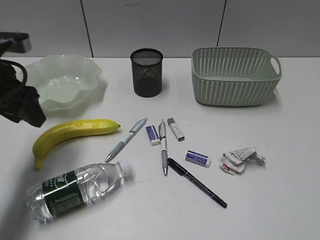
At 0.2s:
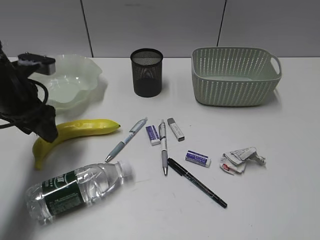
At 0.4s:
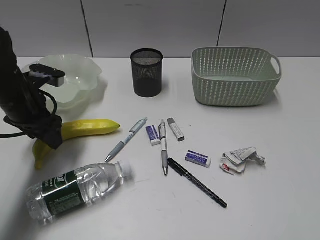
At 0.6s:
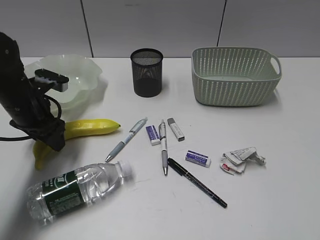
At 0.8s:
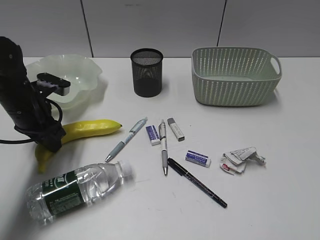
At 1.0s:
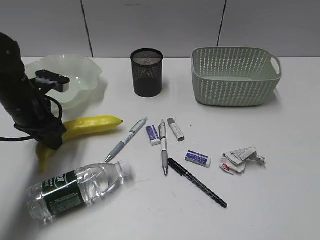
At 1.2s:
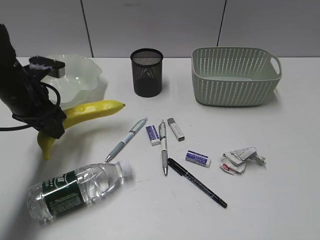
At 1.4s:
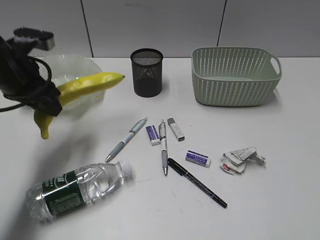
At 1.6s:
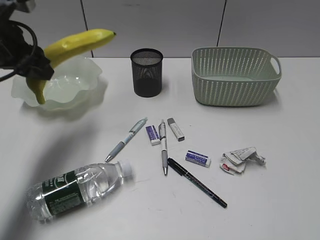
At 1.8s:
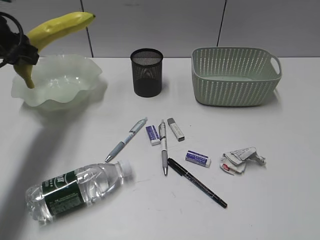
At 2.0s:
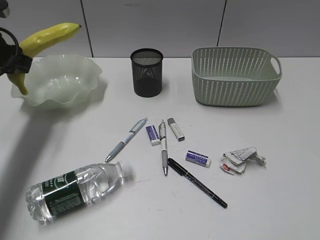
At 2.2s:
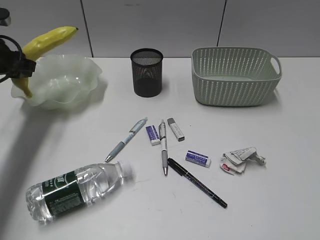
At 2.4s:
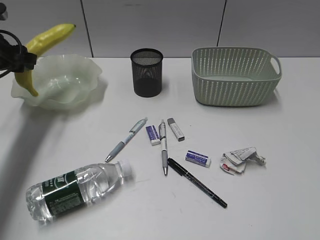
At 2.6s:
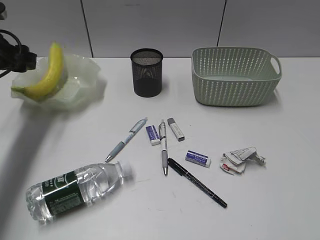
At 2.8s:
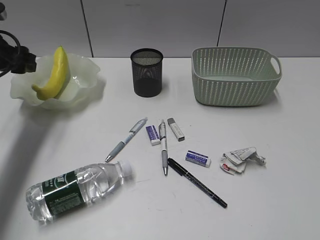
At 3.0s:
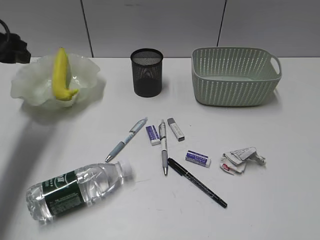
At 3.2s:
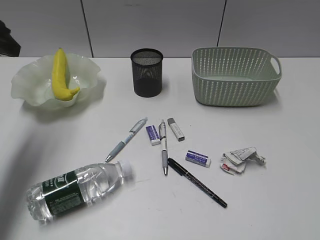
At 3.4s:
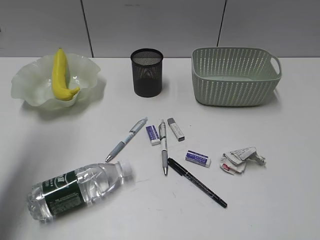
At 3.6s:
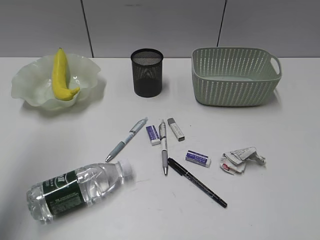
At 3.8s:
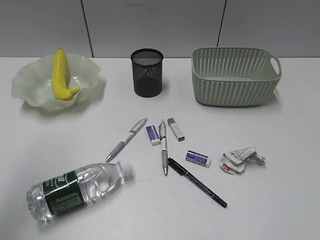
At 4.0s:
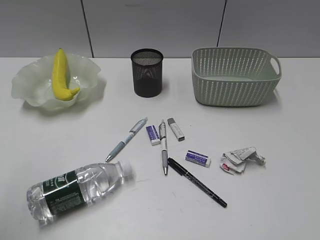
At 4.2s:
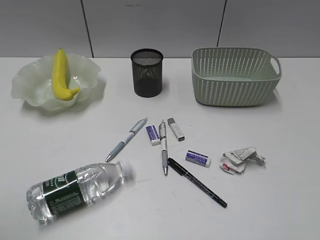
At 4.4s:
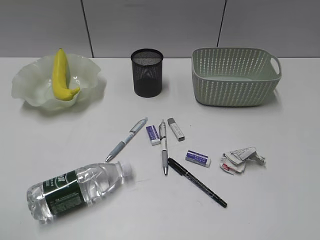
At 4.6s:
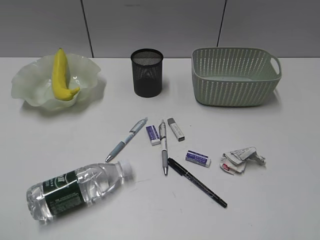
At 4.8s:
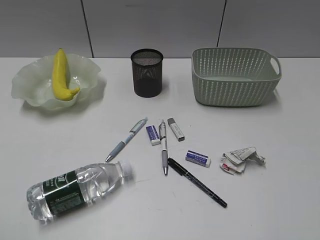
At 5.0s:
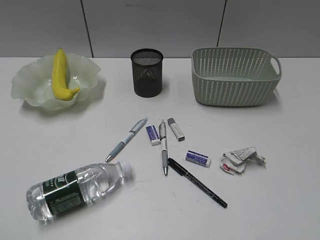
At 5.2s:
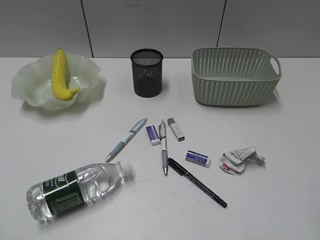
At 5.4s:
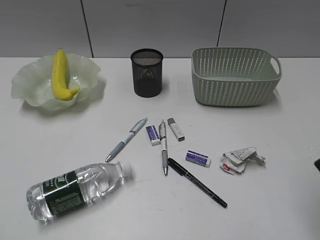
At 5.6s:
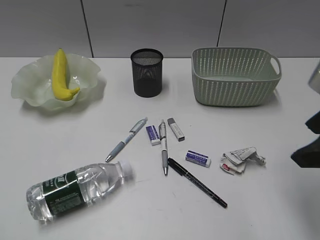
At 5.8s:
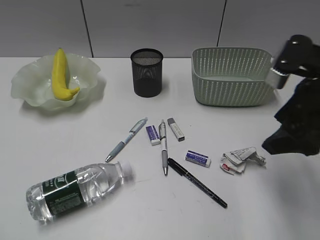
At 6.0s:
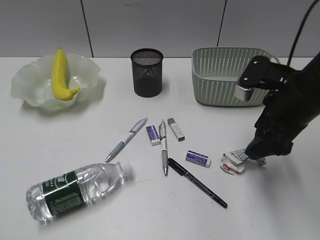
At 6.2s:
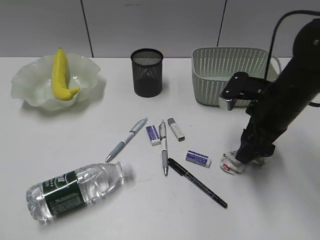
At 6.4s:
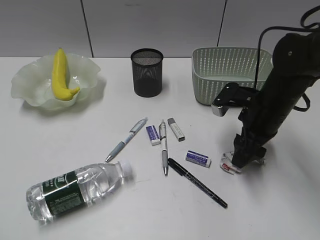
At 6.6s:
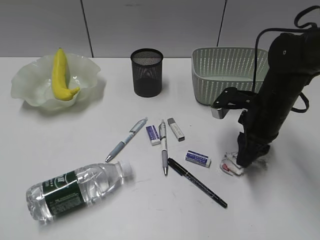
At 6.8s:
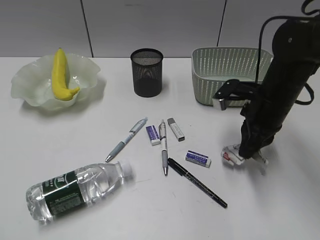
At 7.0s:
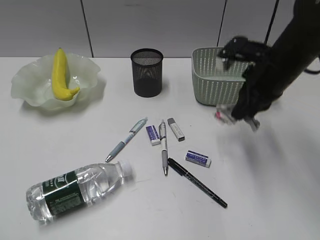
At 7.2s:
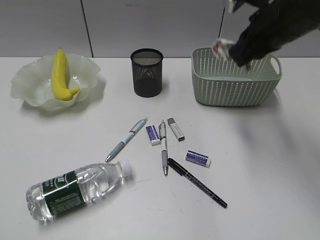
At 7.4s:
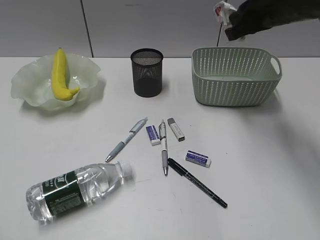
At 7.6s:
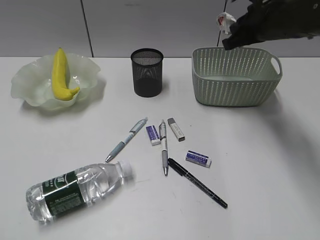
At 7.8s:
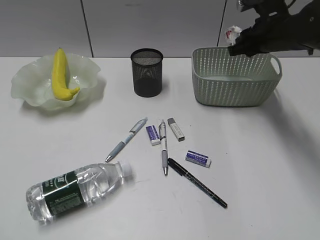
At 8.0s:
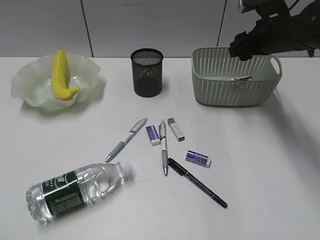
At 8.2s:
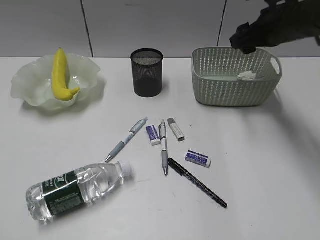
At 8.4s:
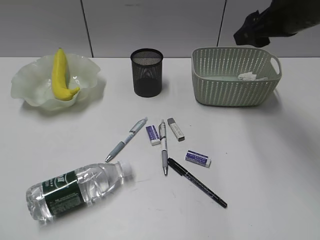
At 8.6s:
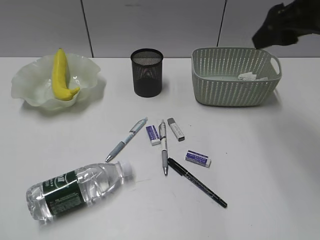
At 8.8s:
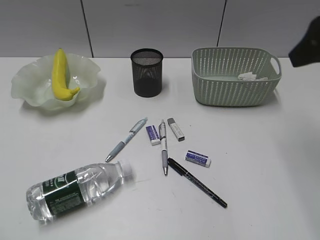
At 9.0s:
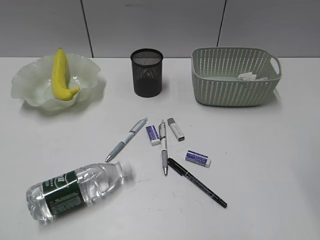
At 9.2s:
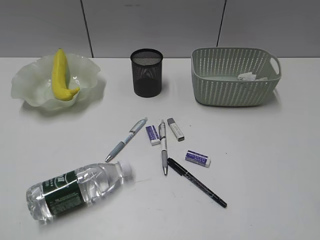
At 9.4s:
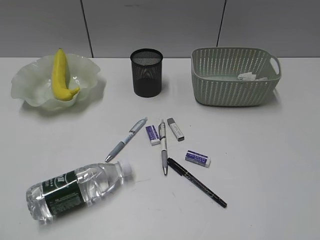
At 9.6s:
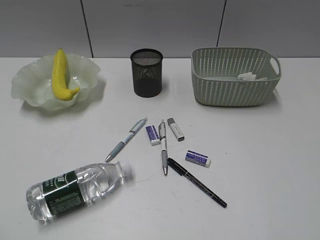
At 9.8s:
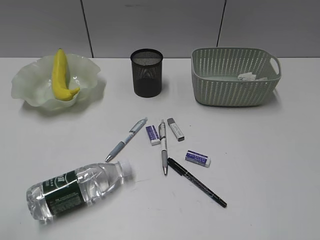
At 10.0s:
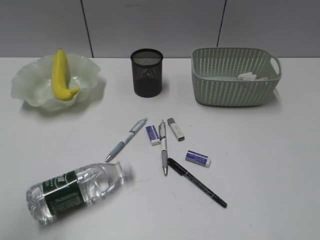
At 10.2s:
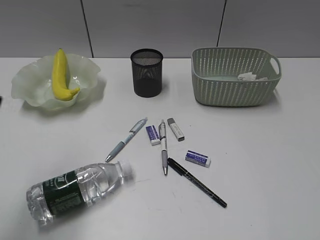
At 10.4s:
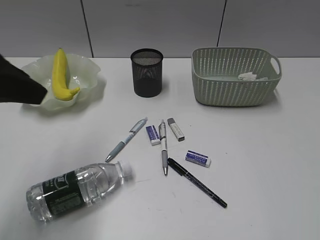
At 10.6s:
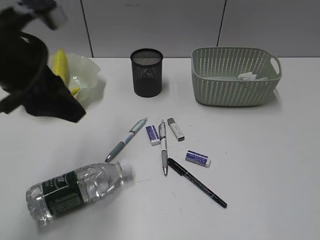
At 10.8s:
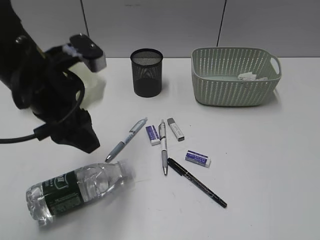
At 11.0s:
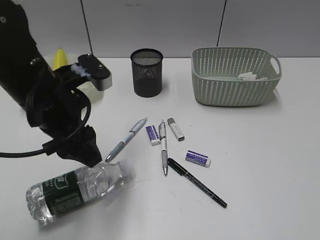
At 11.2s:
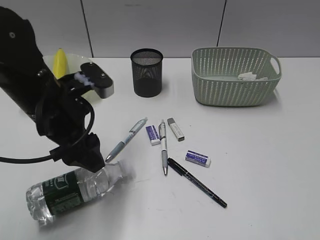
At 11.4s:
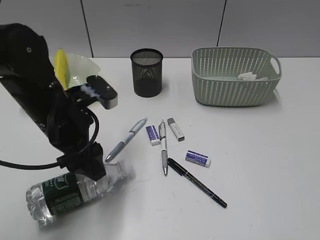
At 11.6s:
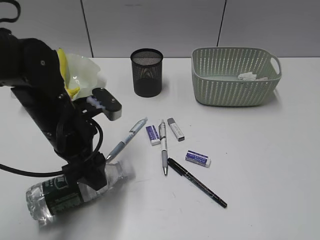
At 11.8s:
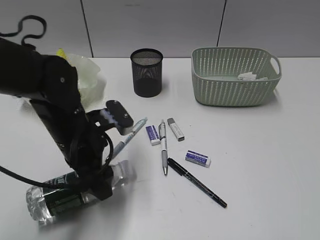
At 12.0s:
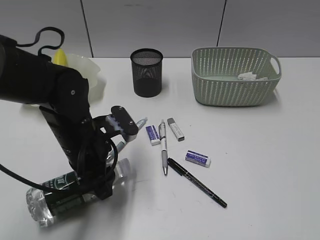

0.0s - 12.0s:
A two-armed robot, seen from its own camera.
Step, 1.0s - 2.4s: Place the banana in the plate with left gripper.
Step, 2.6s - 6.6s: Grasp the waste paper with right gripper.
Step, 6.8s - 8.0s: Place the waste paper in the basket with right gripper.
Step, 8.2s - 12.0s: Grasp the bottle with left gripper.
0.0s - 1.6s: The left gripper goes downward and returns, roughly 10 cm each way.
1.6s - 3.0s: The left gripper goes some 5 cm to the left.
3.0s - 4.4s: The left gripper goes approximately 35 cm backward.
4.4s - 6.0s: The right gripper travels forward by roughly 25 cm, and opens up.
6.0s - 7.6s: The right gripper swings up and down, about 15 cm each way, with 2 reversals, and closes.
7.6s - 9.0s: The right gripper heads backward and upward, covering roughly 25 cm, and opens up.
9.0s - 10.4s: The left gripper travels forward by roughly 20 cm.
10.4s - 12.0s: The left gripper shifts roughly 20 cm downward and to the right.

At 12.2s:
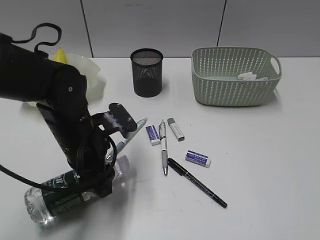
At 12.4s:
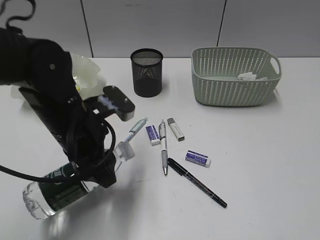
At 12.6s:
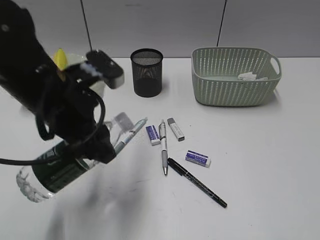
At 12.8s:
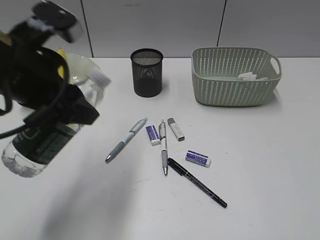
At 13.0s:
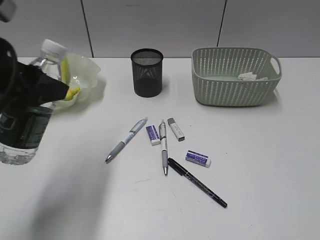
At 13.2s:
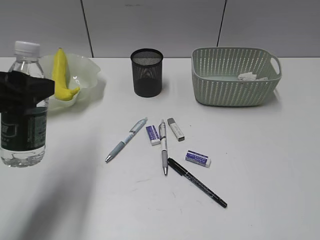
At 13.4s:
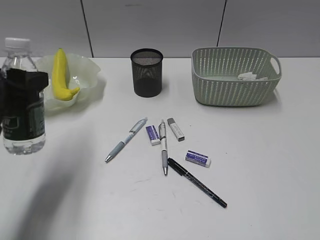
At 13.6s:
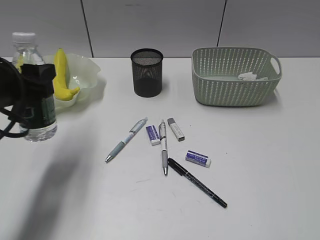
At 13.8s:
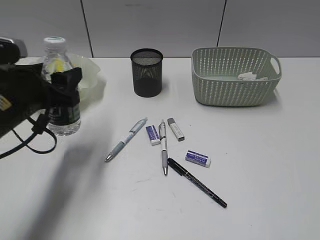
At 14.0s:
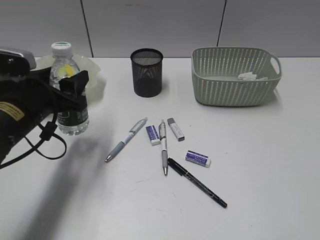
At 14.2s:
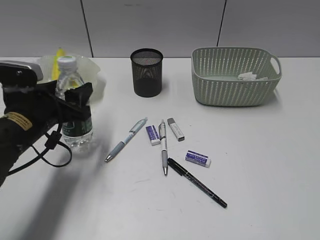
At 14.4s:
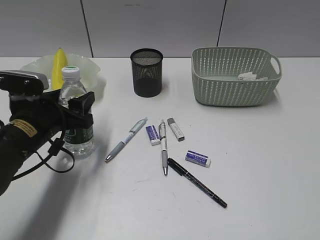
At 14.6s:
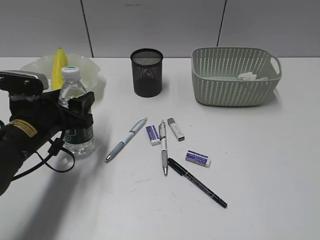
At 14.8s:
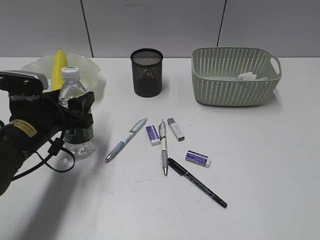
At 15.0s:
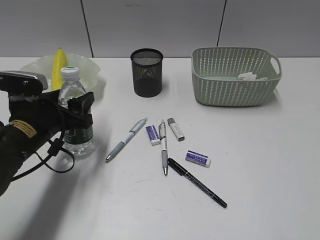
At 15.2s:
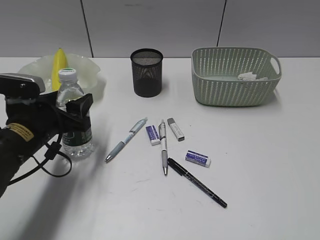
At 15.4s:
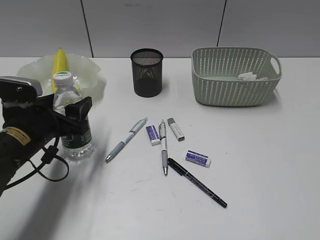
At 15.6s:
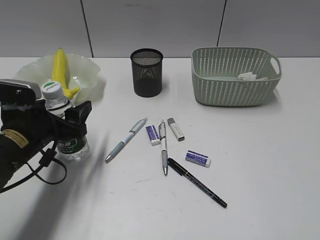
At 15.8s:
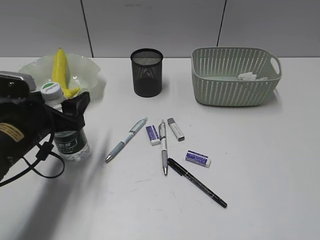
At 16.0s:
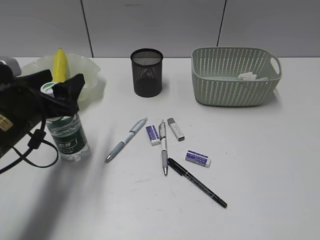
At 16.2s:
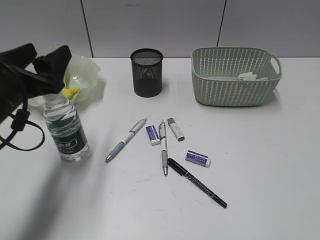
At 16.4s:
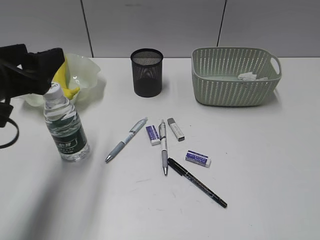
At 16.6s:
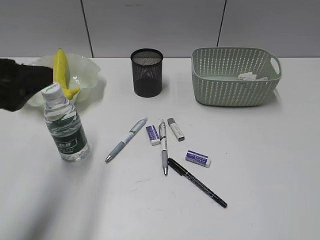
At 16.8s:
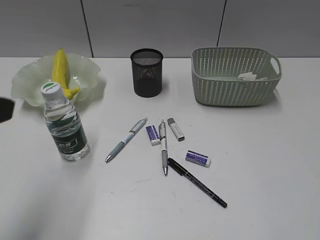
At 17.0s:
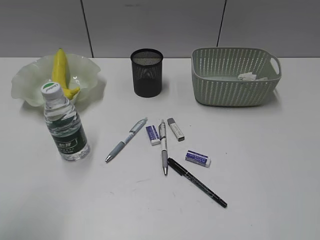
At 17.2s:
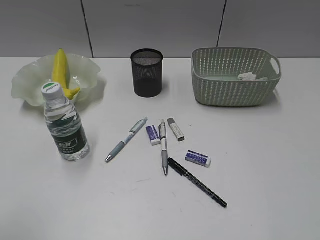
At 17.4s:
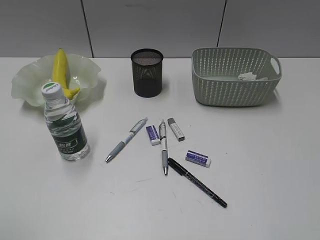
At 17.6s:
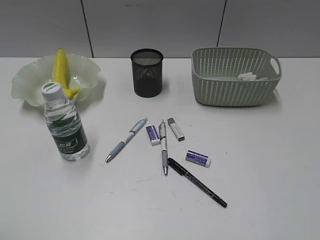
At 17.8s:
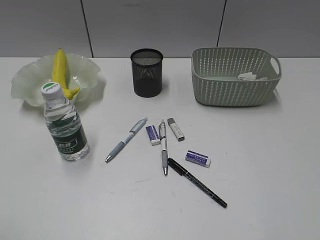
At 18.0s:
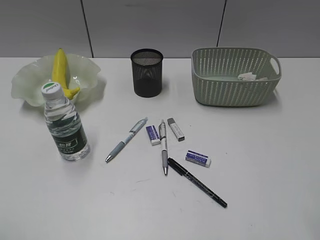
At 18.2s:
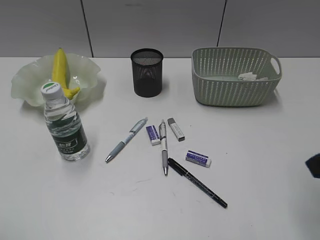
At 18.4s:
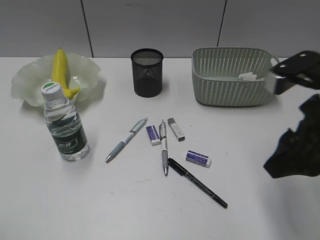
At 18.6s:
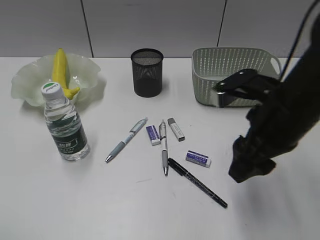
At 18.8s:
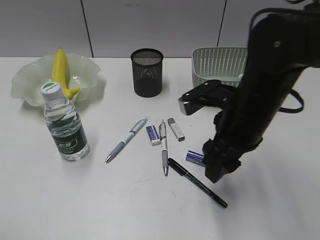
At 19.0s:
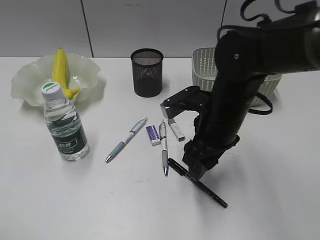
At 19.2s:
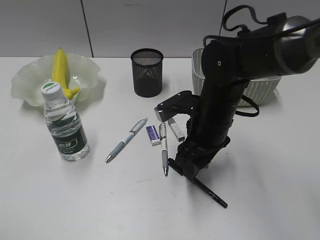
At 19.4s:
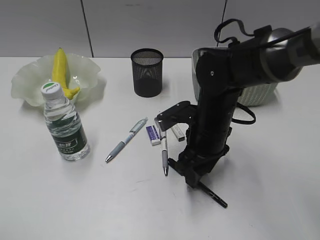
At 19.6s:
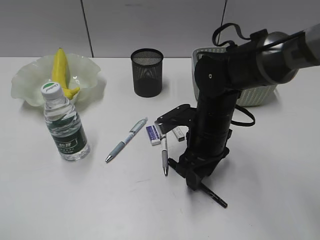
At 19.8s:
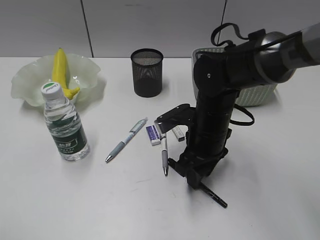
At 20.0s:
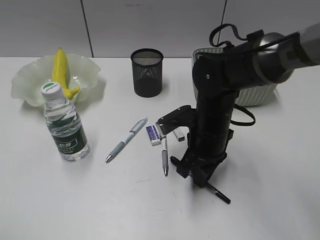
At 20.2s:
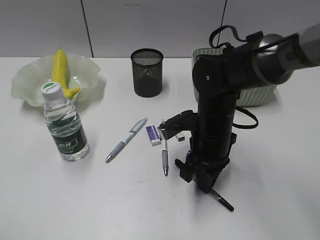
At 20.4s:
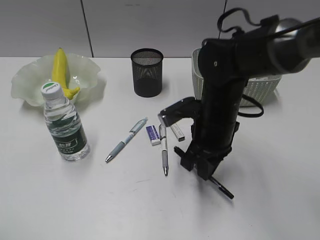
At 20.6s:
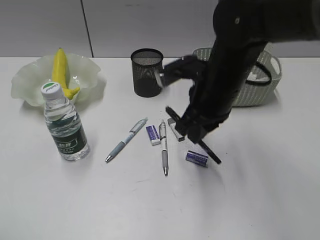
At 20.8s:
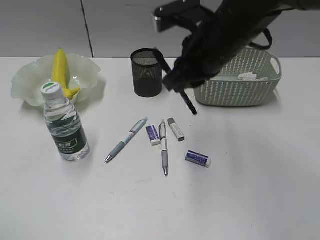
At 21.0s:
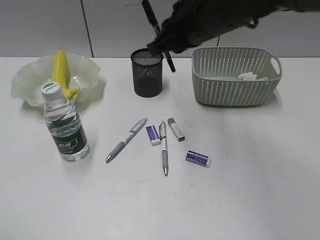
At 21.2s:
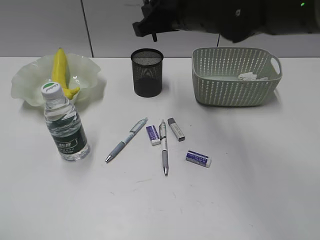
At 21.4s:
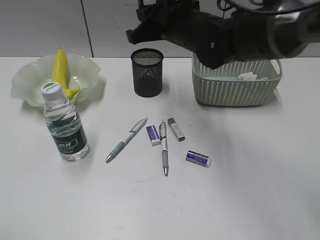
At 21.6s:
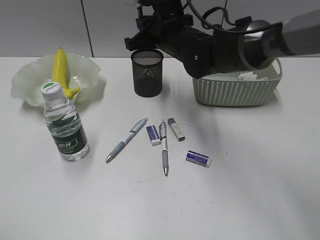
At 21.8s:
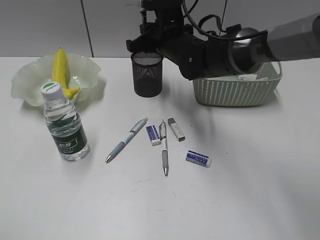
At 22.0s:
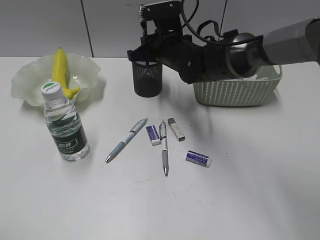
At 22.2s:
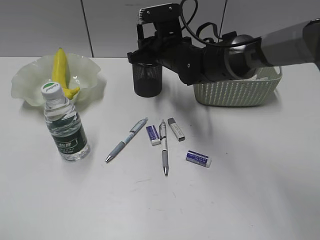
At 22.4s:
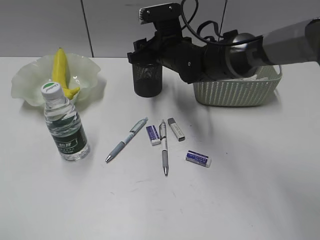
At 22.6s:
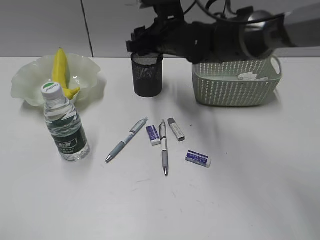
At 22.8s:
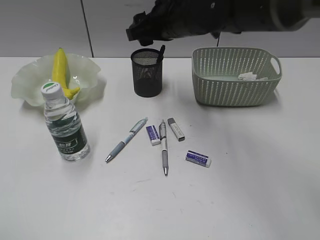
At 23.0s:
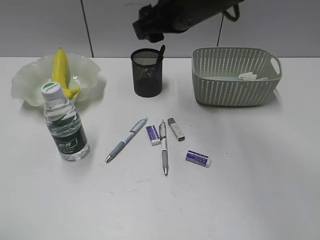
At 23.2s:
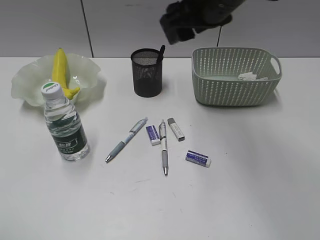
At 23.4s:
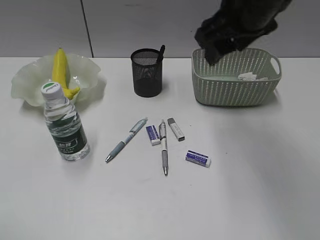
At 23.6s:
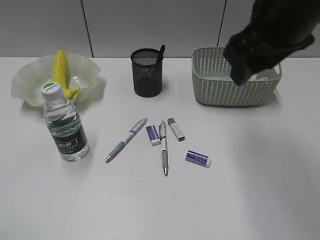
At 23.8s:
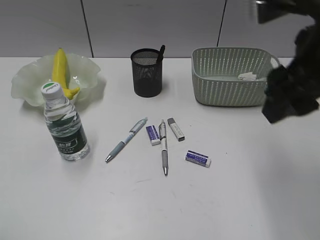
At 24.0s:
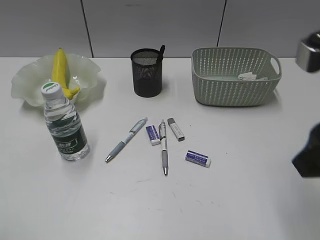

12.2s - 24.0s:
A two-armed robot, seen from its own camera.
Step, 12.2s - 16.0s: Stand the bottle with left gripper.
Step, 16.2s - 20.2s: Grasp the black pen with right gripper.
Step, 20.4s - 22.4s: Place the black pen in pen holder with right gripper.
12.2s - 13.6s: The left gripper heads to the left and upward, covering roughly 15 cm.
13.6s - 15.2s: The left gripper shifts approximately 10 cm downward.
15.2s - 16.6s: The left gripper travels upward and backward by roughly 15 cm.
16.6s - 18.2s: The right gripper heads forward, covering some 15 cm. The left gripper heads backward and to the left, covering about 20 cm.
18.2s - 19.6s: The right gripper heads downward, to the left and forward, covering some 30 cm.
19.6s - 21.0s: The right gripper shifts approximately 15 cm upward, and closes.
21.0s - 22.6s: The right gripper shifts roughly 10 cm forward and downward, and opens its fingers.
22.6s - 24.0s: The right gripper travels backward, to the right and upward by roughly 35 cm.
